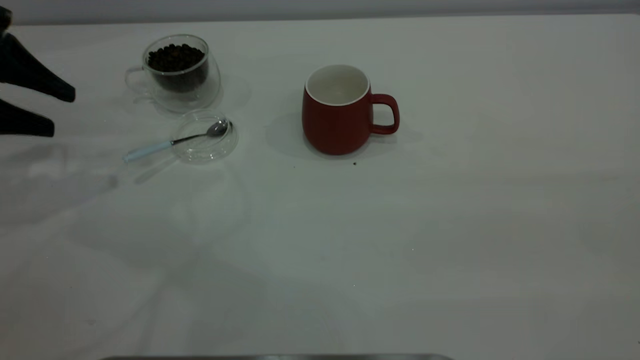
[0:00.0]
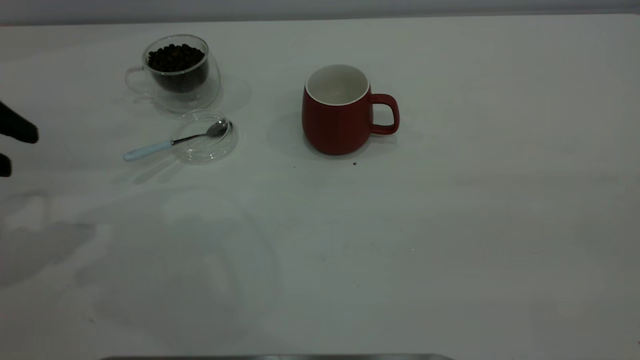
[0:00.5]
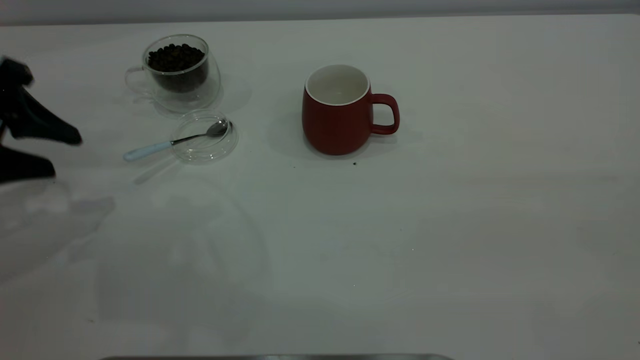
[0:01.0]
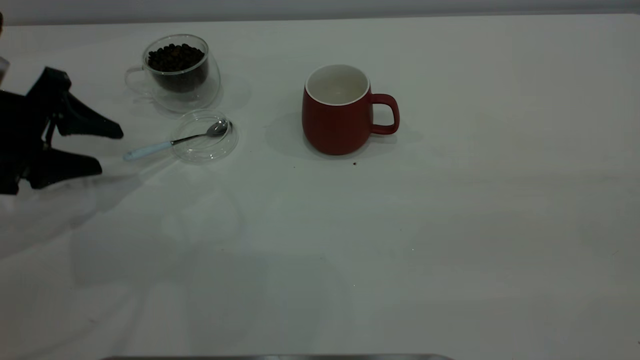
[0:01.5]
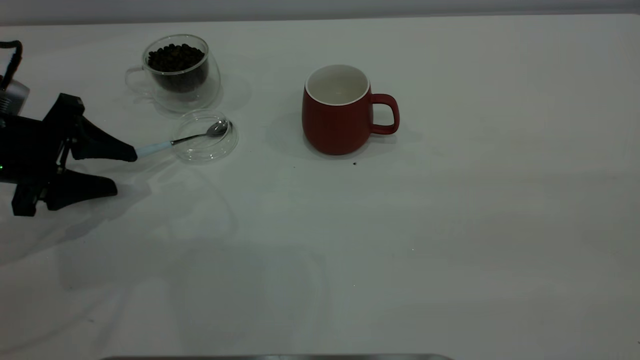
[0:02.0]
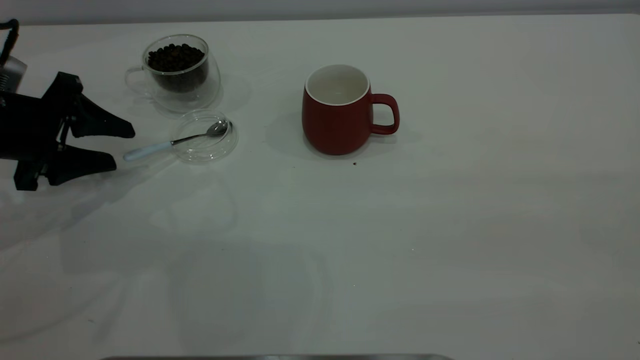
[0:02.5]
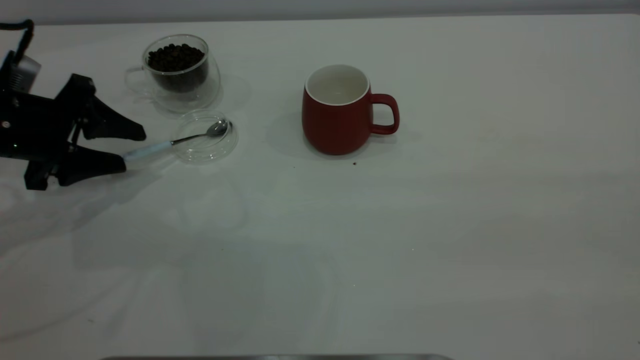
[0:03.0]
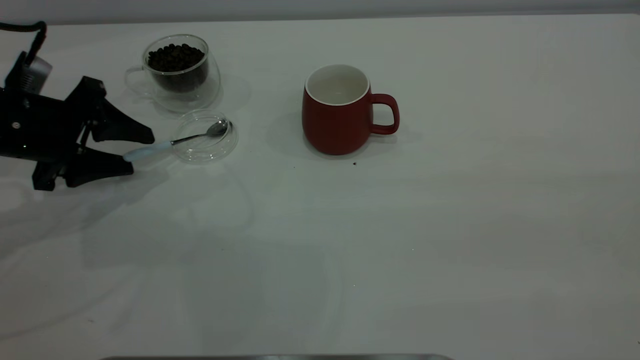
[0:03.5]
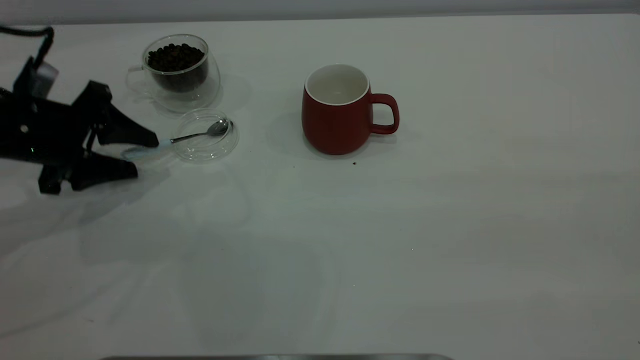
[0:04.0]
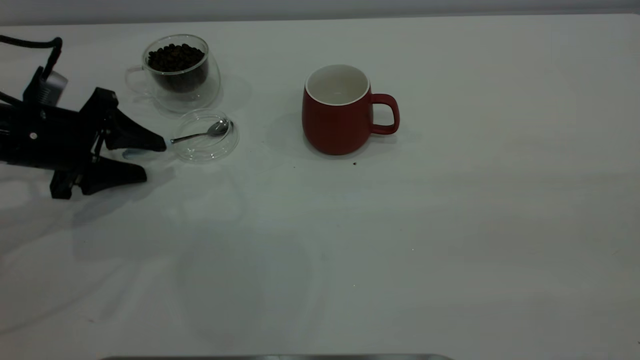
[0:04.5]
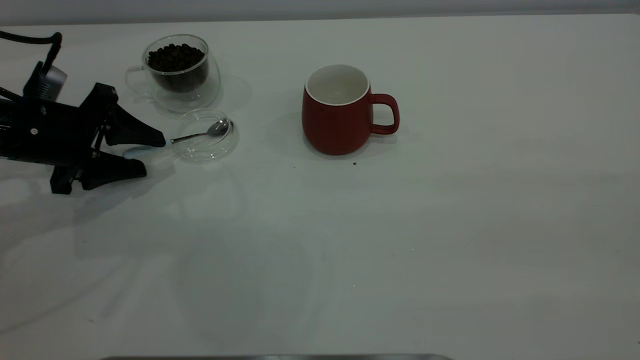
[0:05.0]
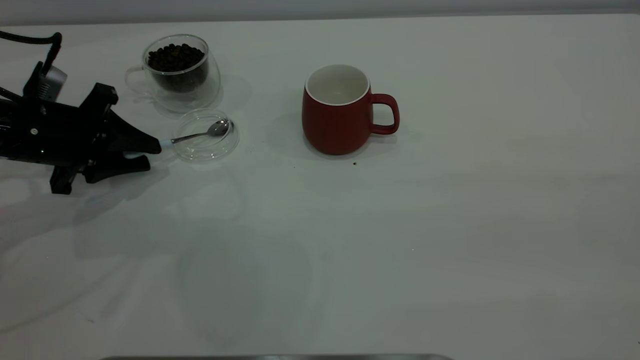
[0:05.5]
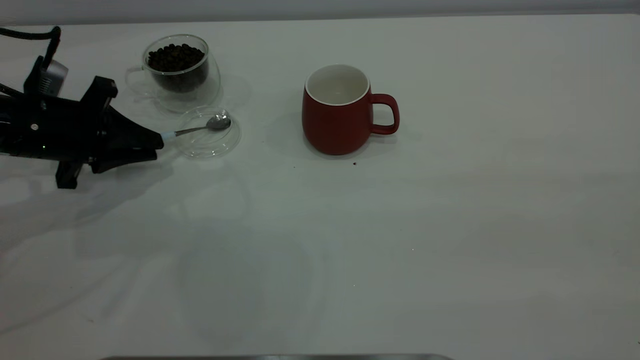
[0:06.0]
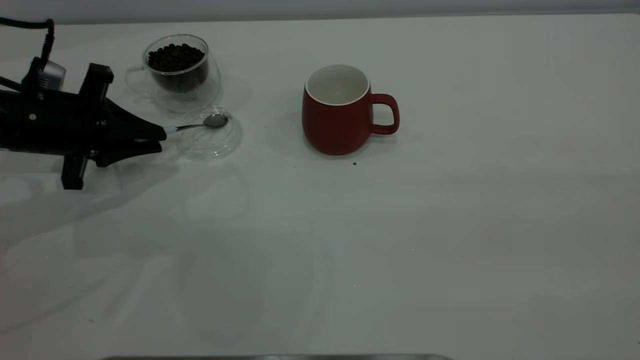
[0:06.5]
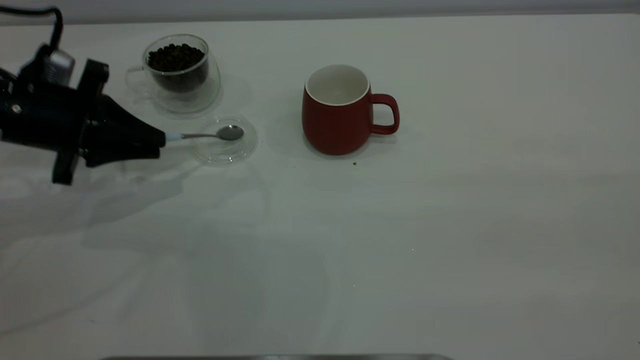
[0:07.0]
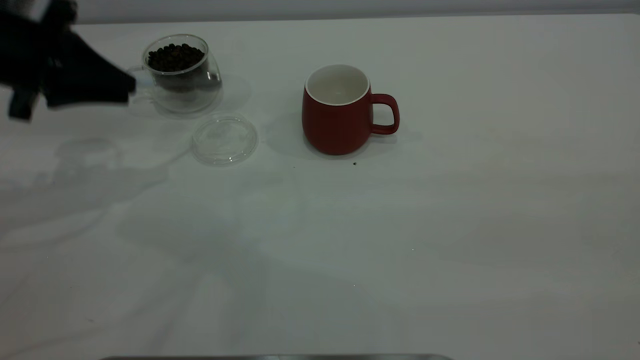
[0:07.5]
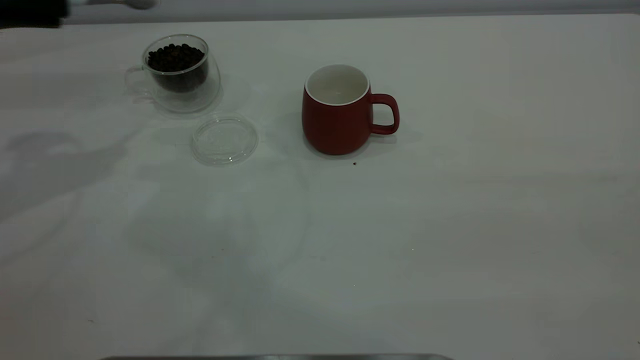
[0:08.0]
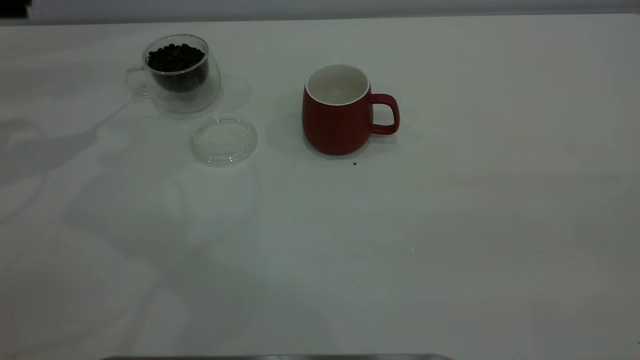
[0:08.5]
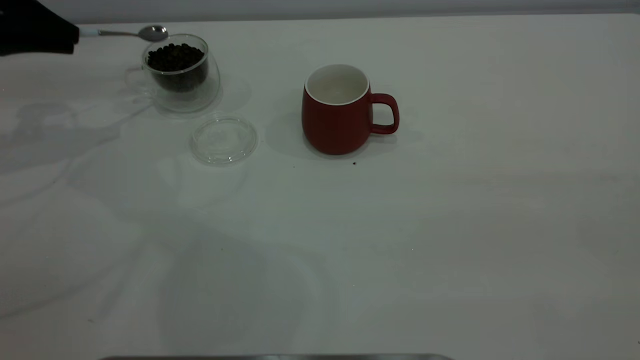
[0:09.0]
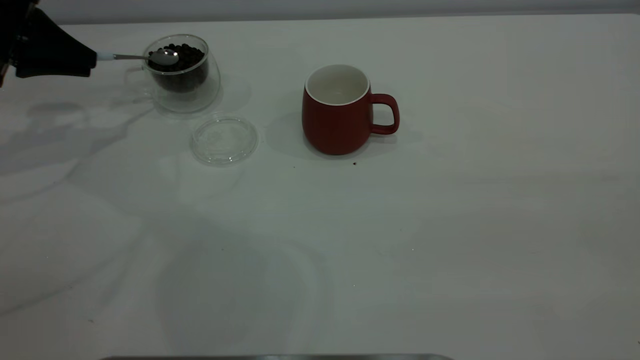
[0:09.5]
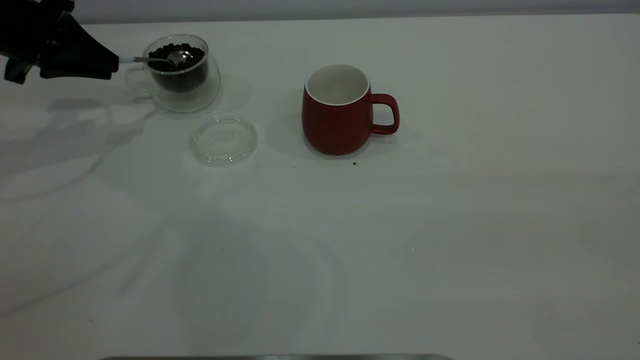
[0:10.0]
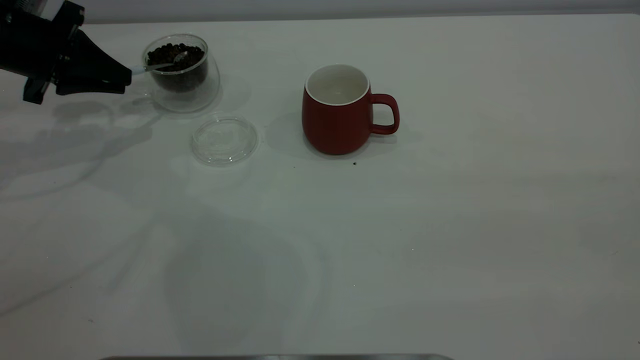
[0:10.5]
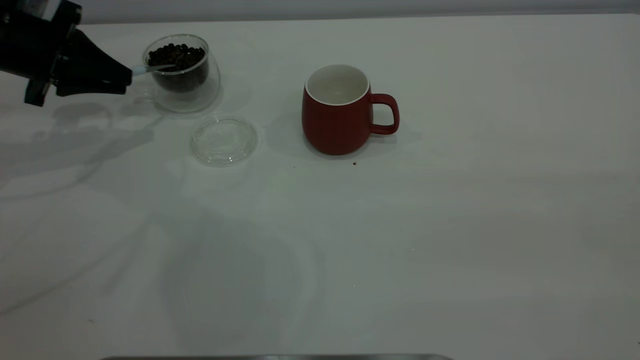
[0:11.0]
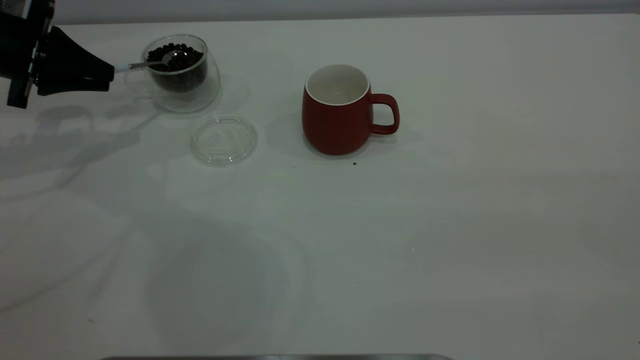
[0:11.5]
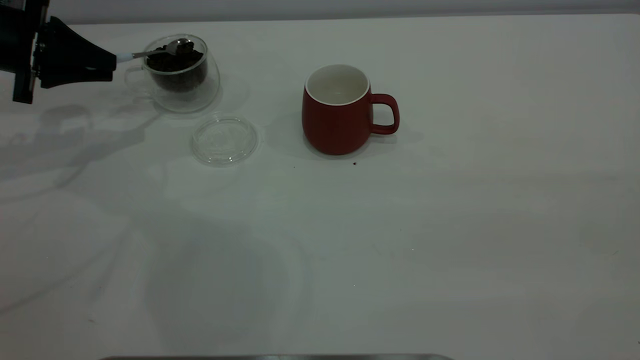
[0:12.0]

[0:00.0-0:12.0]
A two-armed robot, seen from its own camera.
Task of the whole recording: the right gripper place the red cup in the center of the table, the left gripper take the blue spoon from the cup lid and scoop out the coffee beans from the coffee cup and put them into the red cup, the left gripper put the spoon back into the cup lid.
Step, 0:00.0 to 0:07.0: Pick up the spoon.
0:00.0 to 0:02.0: The left gripper travels downward by about 10 cm.
0:02.0 to 0:04.0: The grippers move only a little.
0:04.0 to 0:06.0: The left gripper closes.
0:06.0 to 0:08.0: The left gripper travels upward by about 15 cm.
0:08.0 to 0:10.0: The left gripper goes roughly 10 cm downward and forward.
0:10.0 to 0:12.0: The grippers make only small movements.

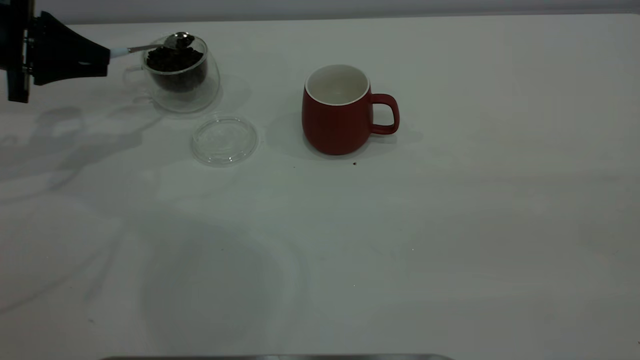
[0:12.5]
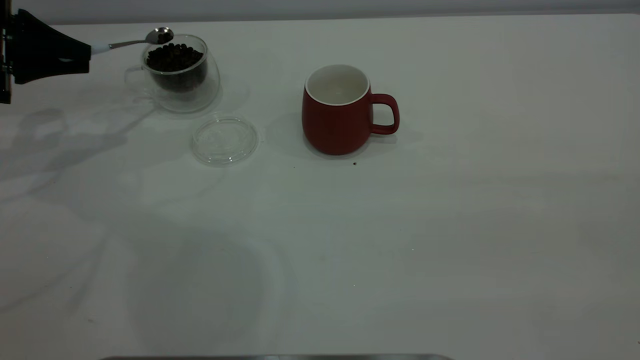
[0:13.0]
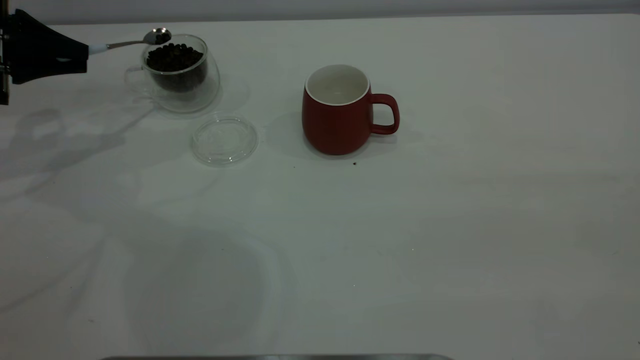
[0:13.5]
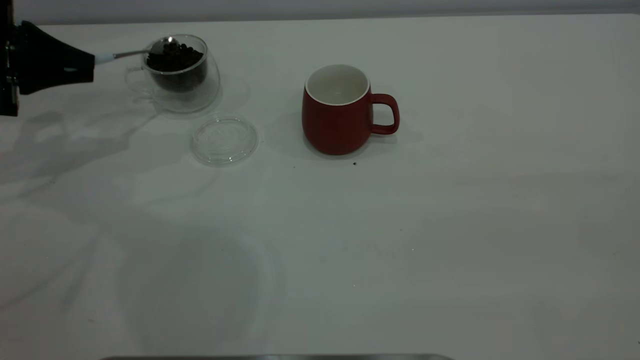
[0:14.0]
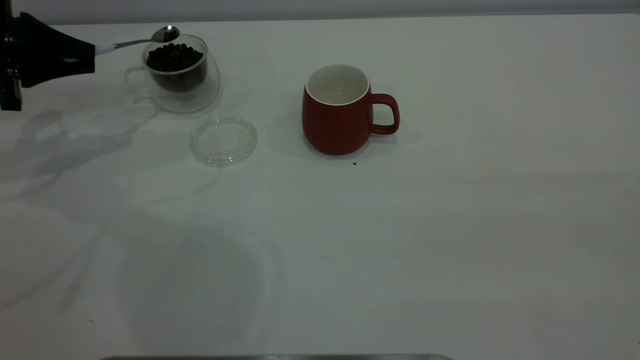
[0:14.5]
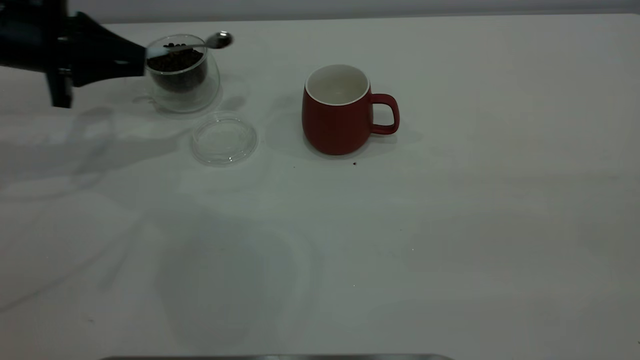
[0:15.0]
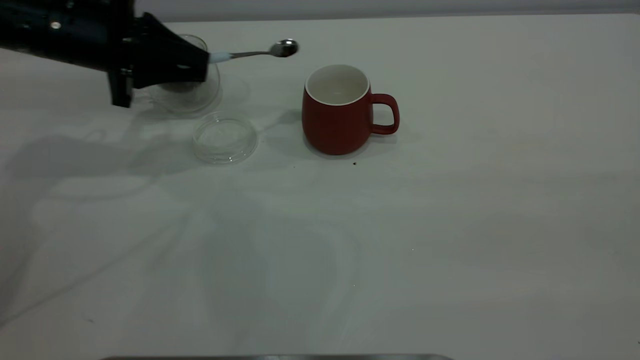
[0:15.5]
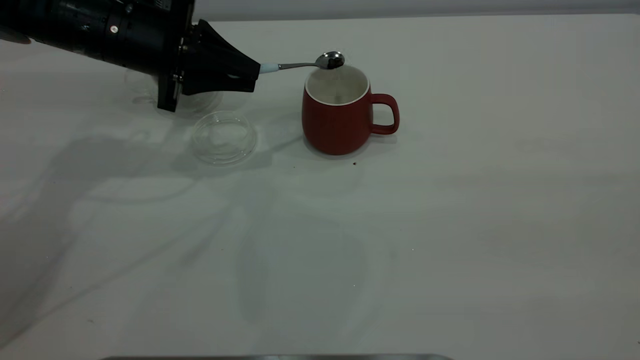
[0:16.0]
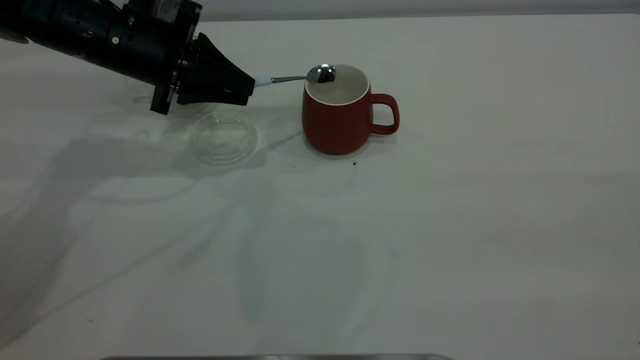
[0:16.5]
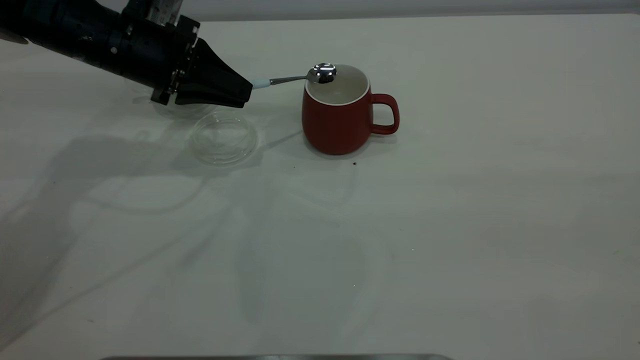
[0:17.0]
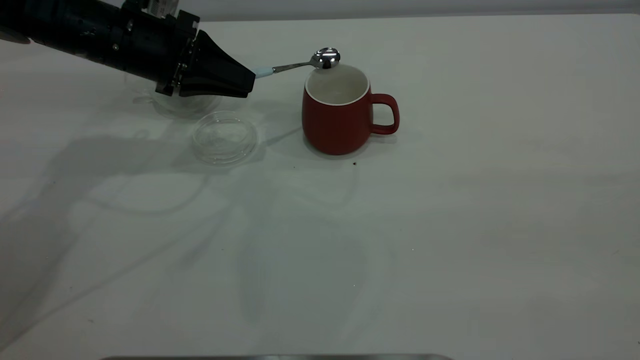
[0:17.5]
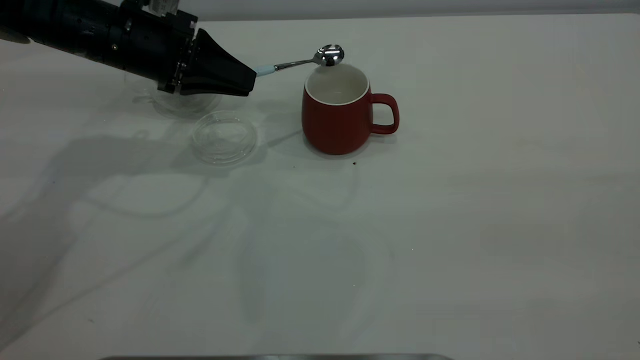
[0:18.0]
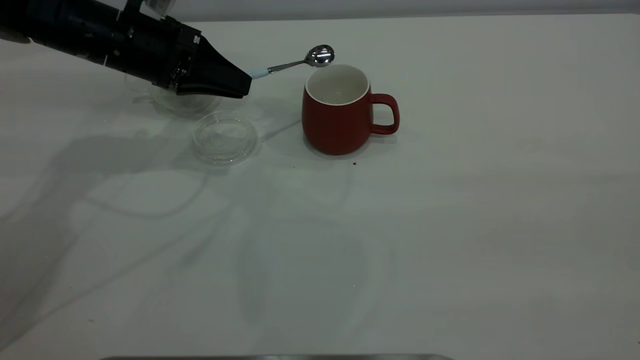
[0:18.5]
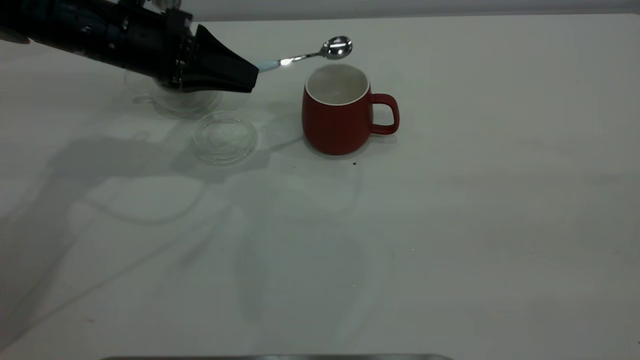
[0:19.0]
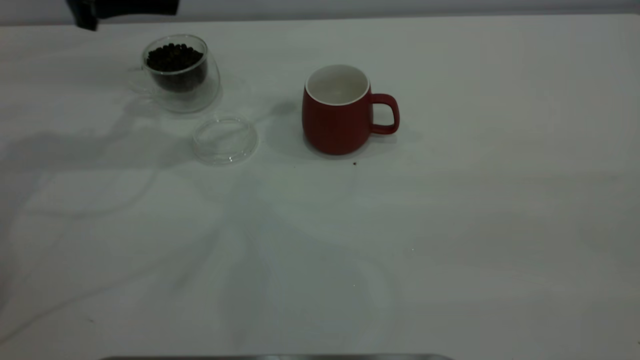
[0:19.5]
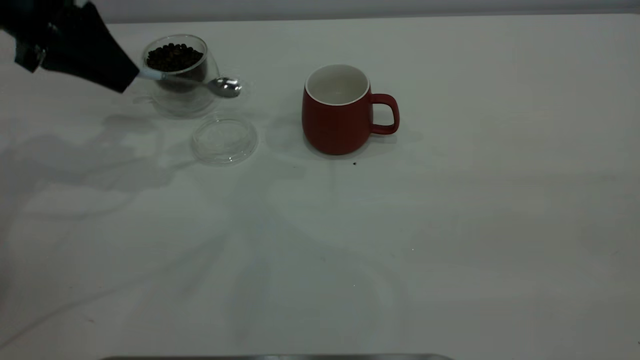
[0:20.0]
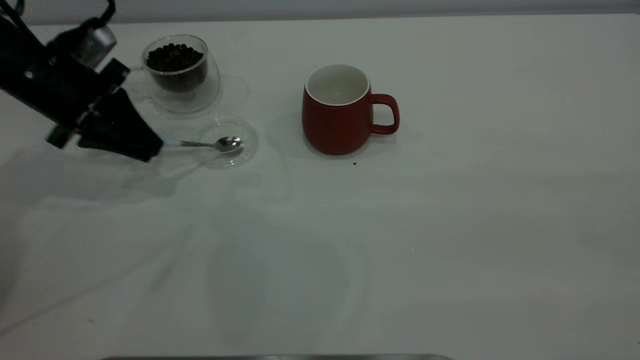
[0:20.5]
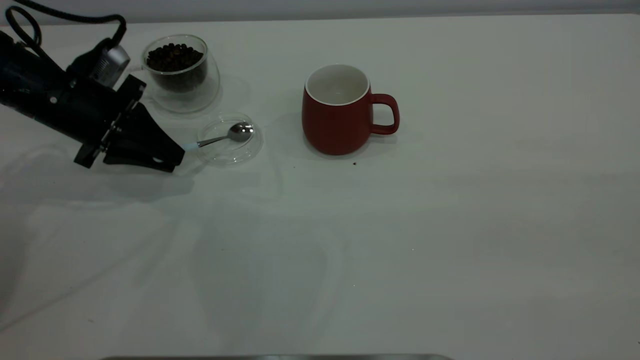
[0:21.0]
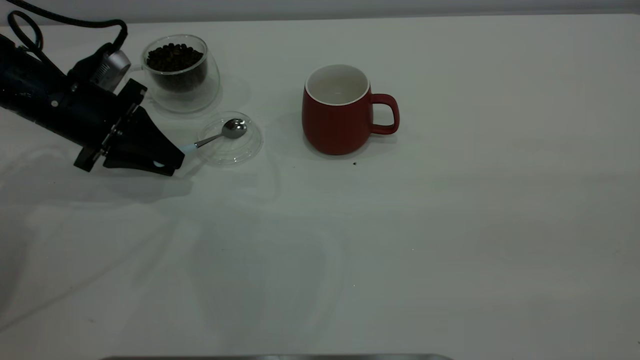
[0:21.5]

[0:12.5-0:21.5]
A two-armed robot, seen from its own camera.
Task of the whole recording: the right gripper place the red cup in the center of the table, the left gripper take the blue spoon from the cup lid and scoop out the coffee beans from the coffee cup and put them into the red cup, the left gripper put the spoon back into the cup lid.
Step, 0:12.5 to 0:19.0: Scoop a spoonful of beans into the cup.
0:12.5 to 0:14.5: There are only small adjustments of the grippers.
0:14.5 to 0:17.0: The left gripper goes some 15 cm to the right.
0:17.0 to 0:19.5: The left gripper goes some 10 cm upward and to the left.
0:19.5 to 0:21.5: The left gripper shifts about 15 cm downward.
